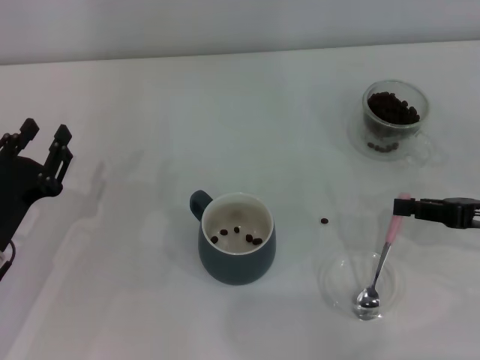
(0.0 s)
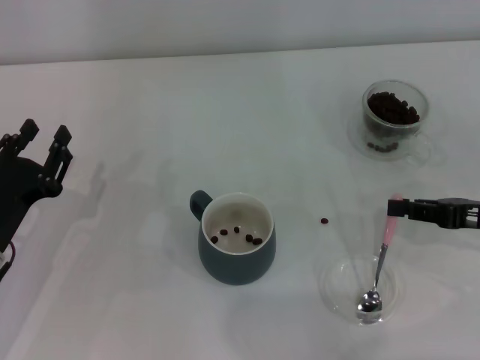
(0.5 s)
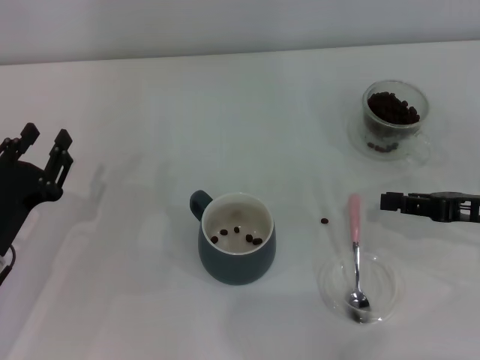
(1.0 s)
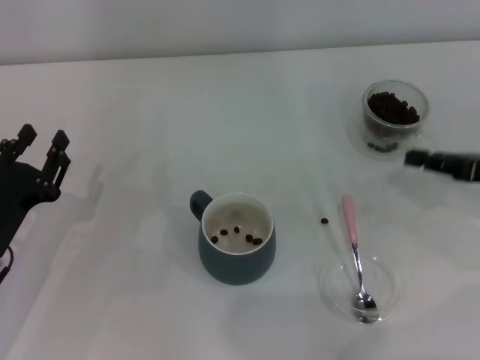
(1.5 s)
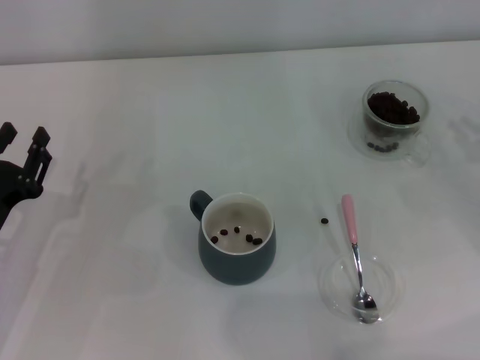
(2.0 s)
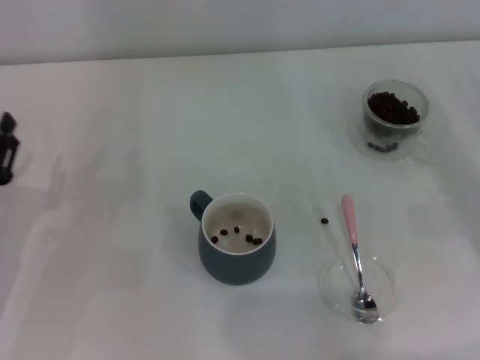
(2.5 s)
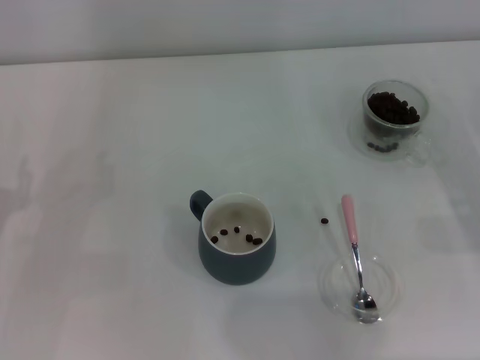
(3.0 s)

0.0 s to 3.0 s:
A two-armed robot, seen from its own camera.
Task of the whole recording: Use a pink spoon to take out the coffee beans from the glass and pour them into the gray cup.
0.0 to 1.5 s: There are only small adjustments of the grippers.
1.5 to 3.0 s: The right gripper ends up about 5 cm from where it was; the left gripper goes roughly 5 cm to the left.
